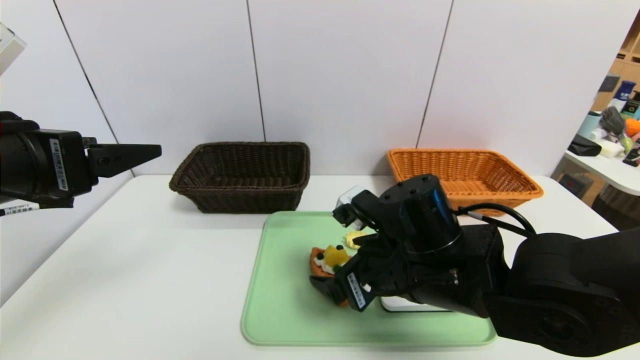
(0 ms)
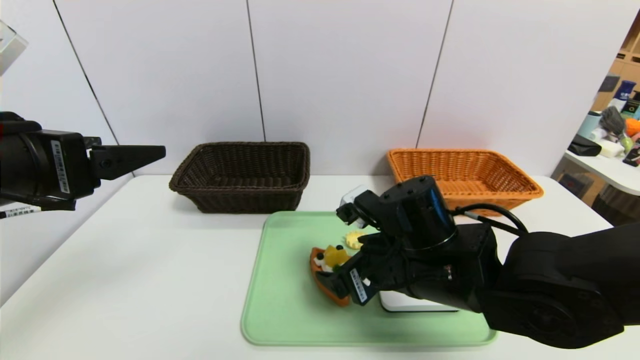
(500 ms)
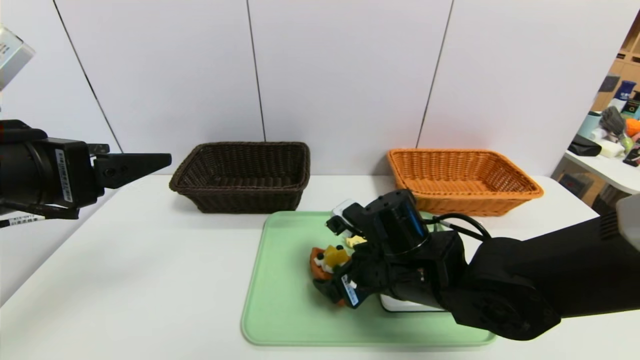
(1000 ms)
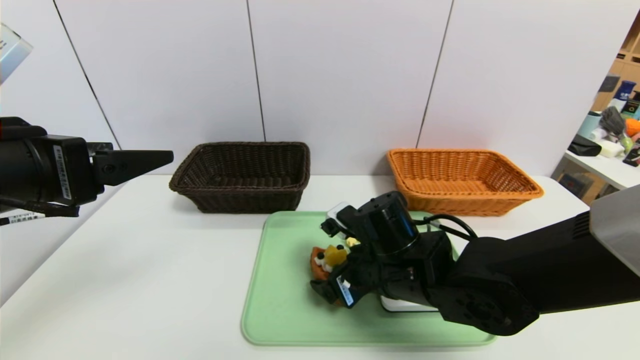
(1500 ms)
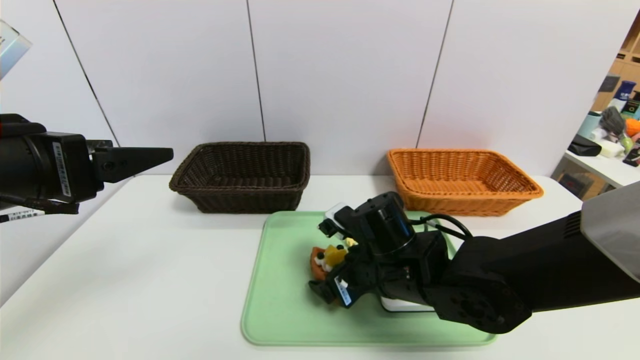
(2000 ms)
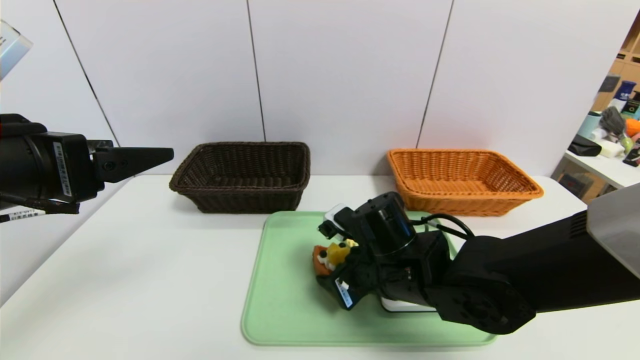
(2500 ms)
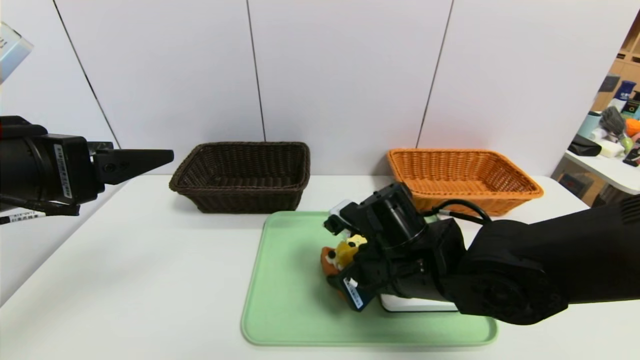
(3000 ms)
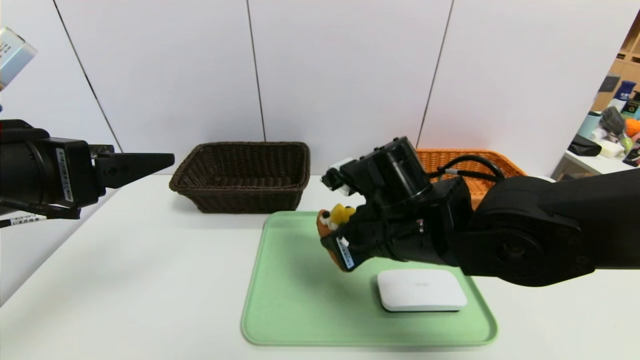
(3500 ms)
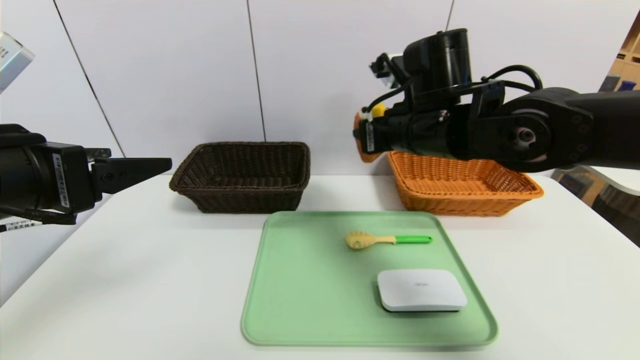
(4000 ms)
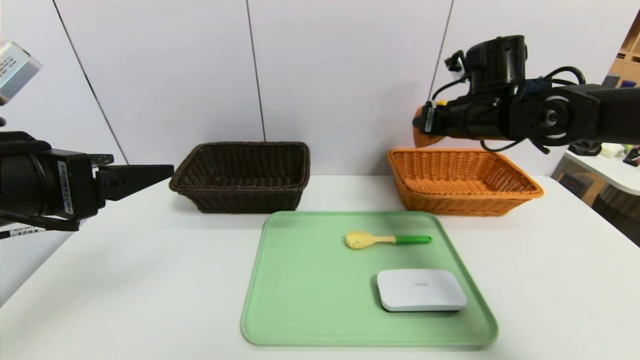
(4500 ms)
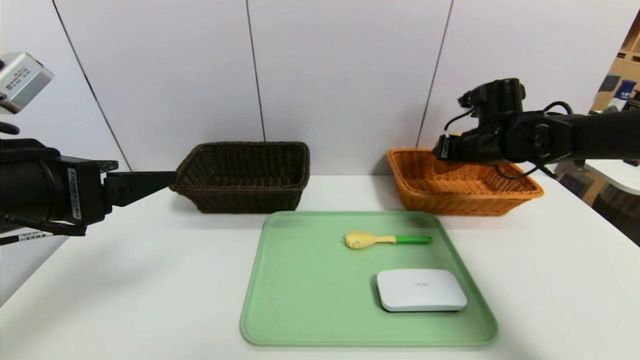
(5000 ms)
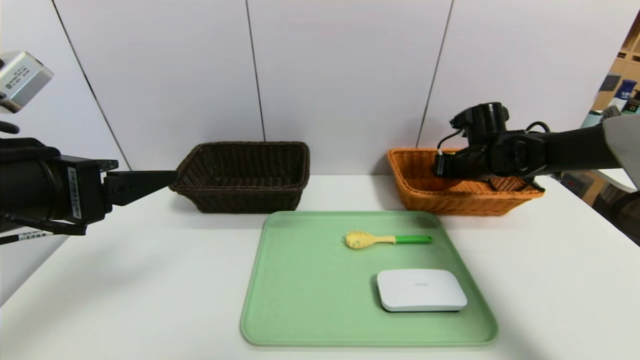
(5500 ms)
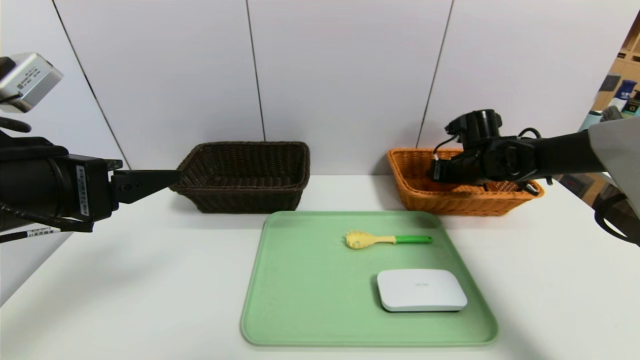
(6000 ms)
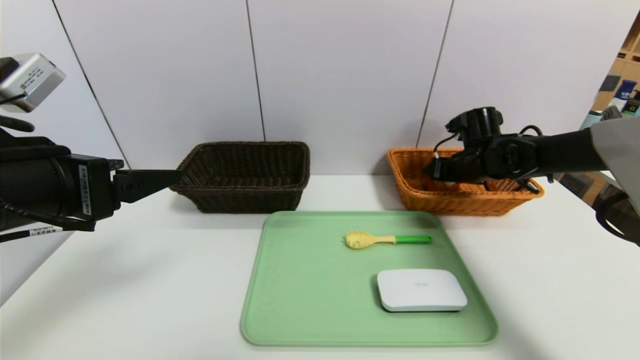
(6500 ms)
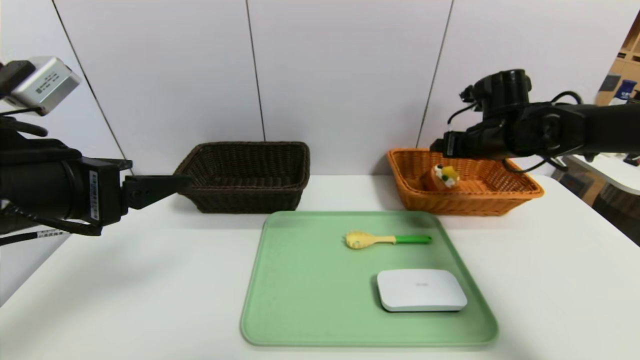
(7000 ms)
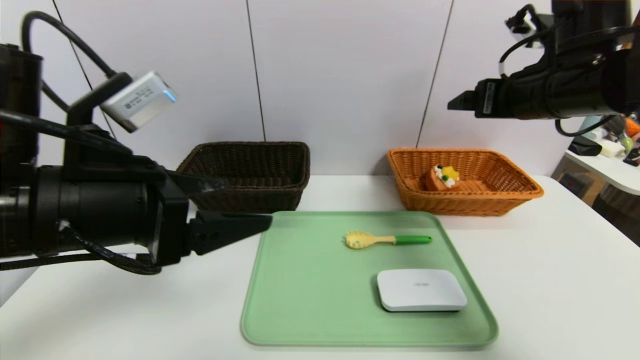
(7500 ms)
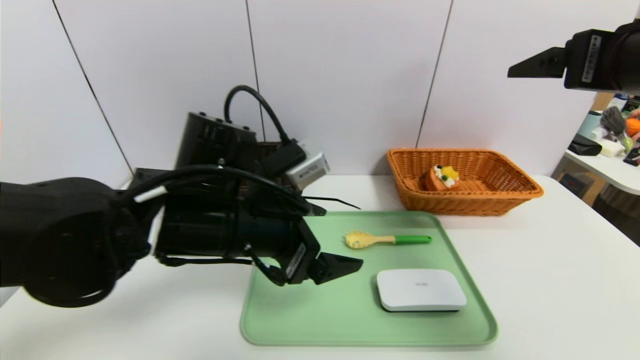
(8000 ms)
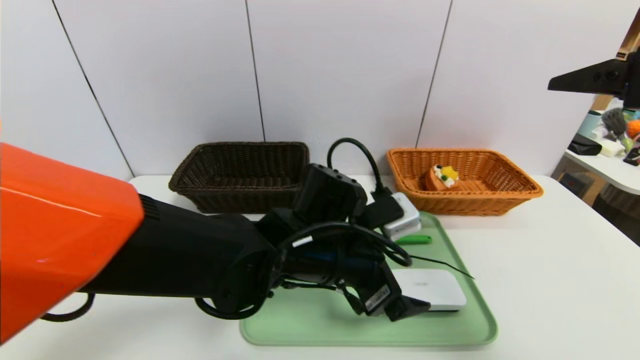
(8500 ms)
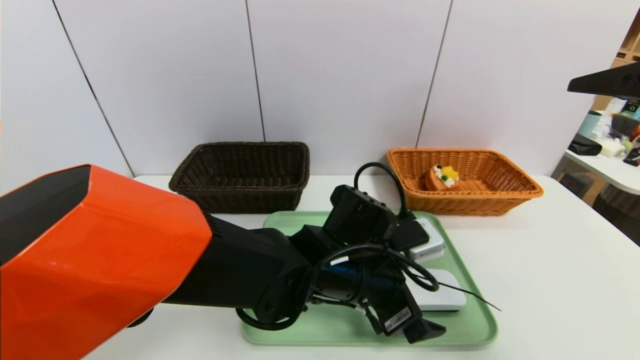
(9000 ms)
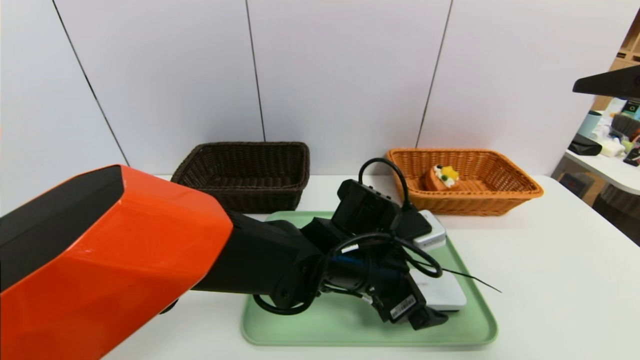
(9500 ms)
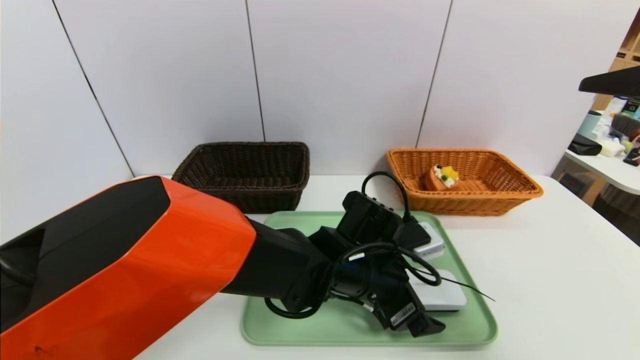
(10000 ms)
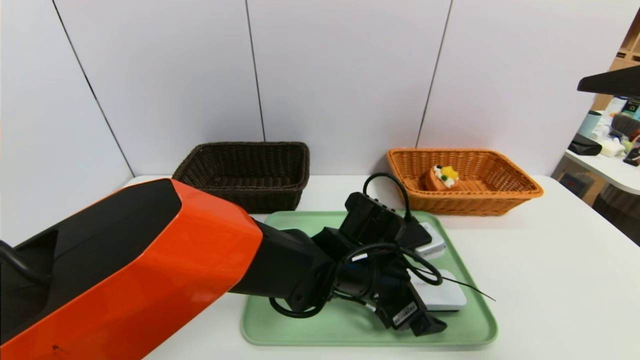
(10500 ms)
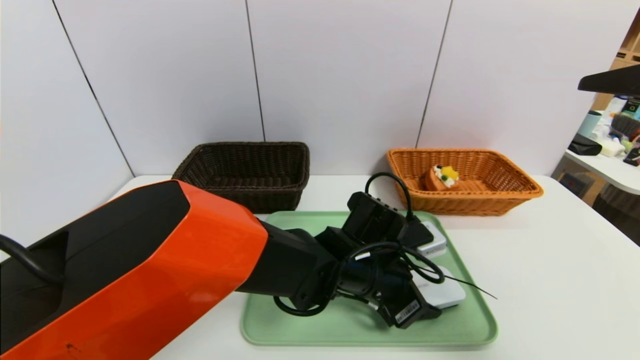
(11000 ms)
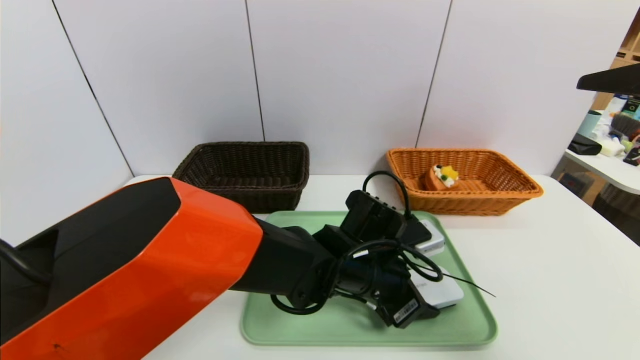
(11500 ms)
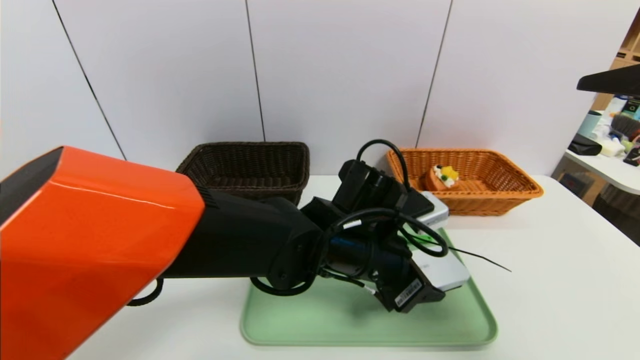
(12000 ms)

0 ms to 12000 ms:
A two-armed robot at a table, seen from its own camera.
Task of the whole recording: place the food in the right basket with the right gripper, and place the non food items in the left basket with the left gripper.
Step, 0 ms to 6500 ms: Grasp the triangle cake and put it in the right basket.
0 ms to 2000 ms: The right gripper moves some 5 cm.
2000 ms to 4000 ms: The right gripper goes roughly 20 cm upward and forward, and closes its fingers.
4000 ms to 6000 ms: The right gripper moves to the right, downward and forward, about 25 cm.
6000 ms to 8000 ms: The left gripper goes approximately 20 cm to the right, downward and forward, while the right gripper heads backward and upward, covering roughly 30 cm, and opens.
8000 ms to 10000 ms: The right gripper travels backward by some 10 cm. Meanwhile the left gripper heads to the right and downward, covering approximately 15 cm.
10000 ms to 12000 ms: The left gripper heads upward, covering approximately 5 cm, and closes up.

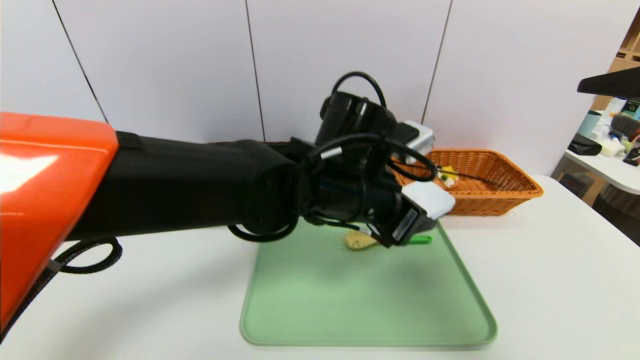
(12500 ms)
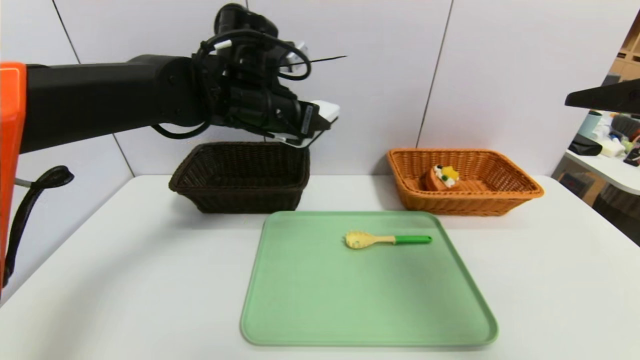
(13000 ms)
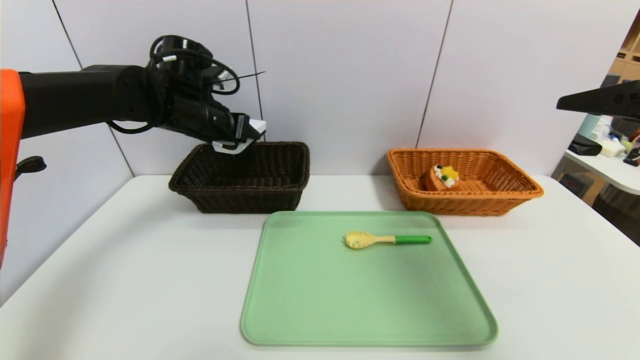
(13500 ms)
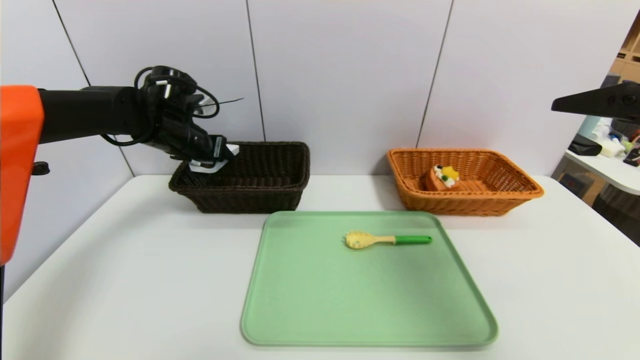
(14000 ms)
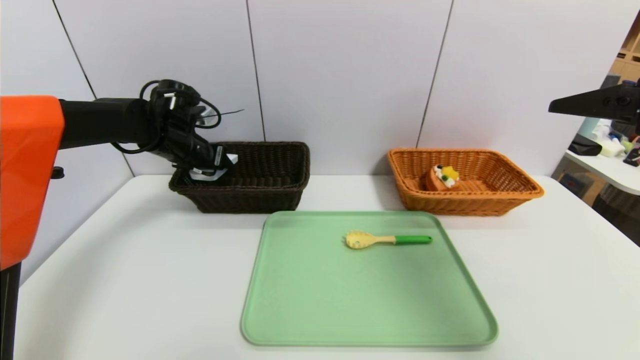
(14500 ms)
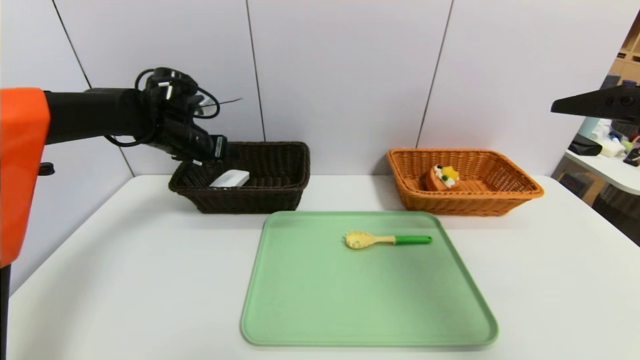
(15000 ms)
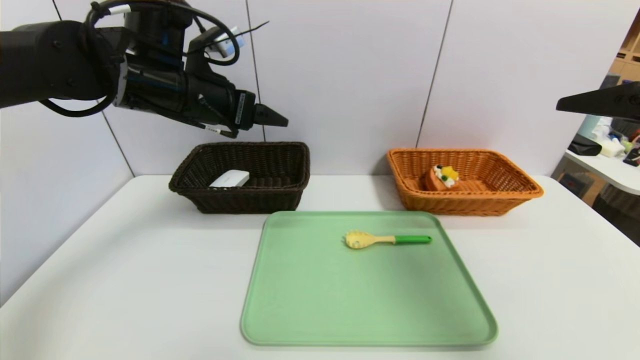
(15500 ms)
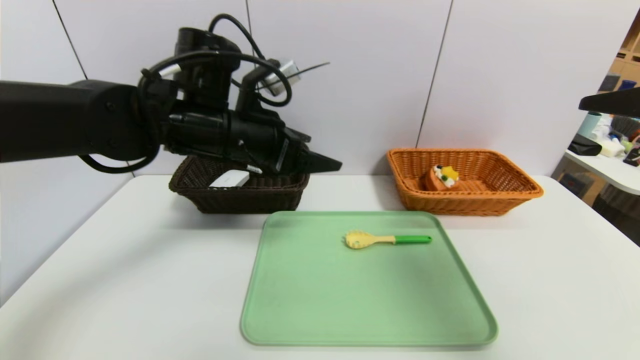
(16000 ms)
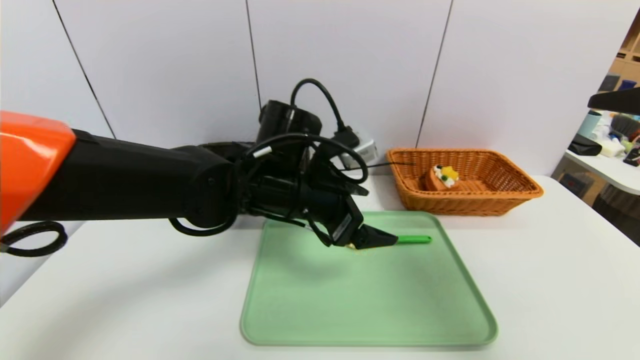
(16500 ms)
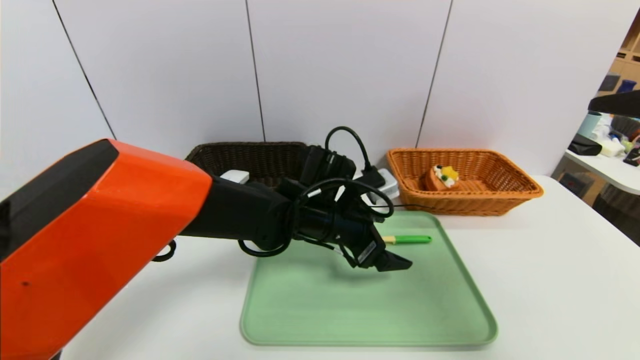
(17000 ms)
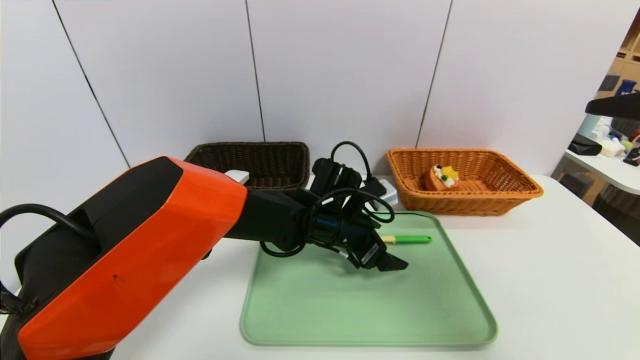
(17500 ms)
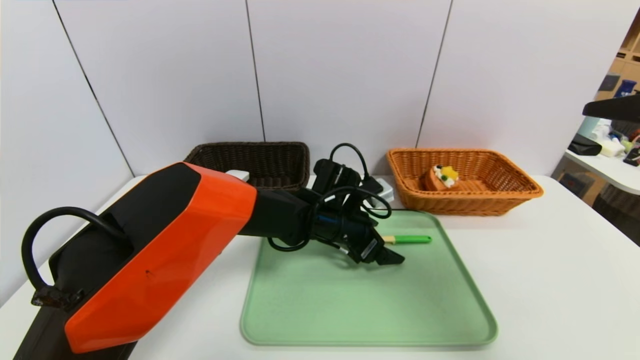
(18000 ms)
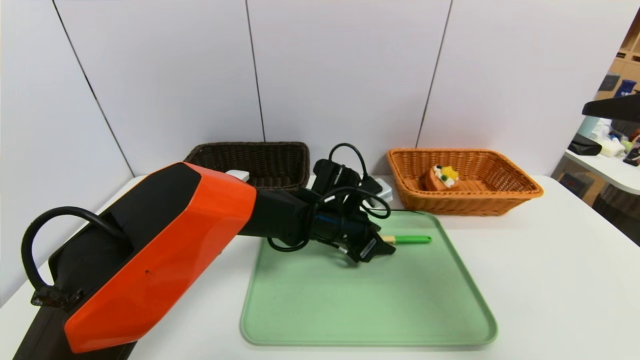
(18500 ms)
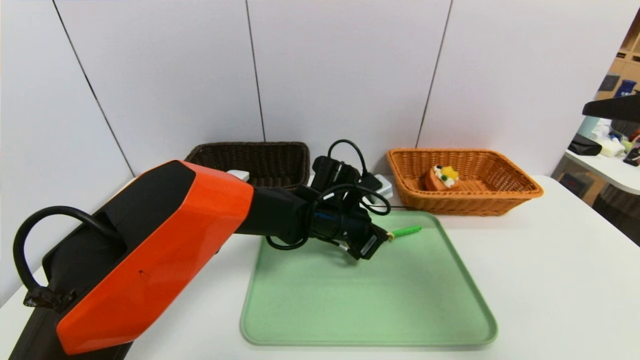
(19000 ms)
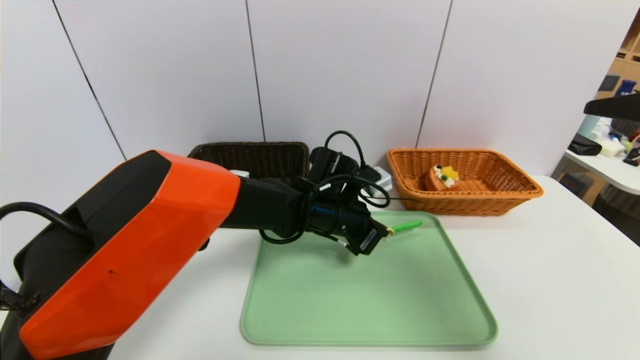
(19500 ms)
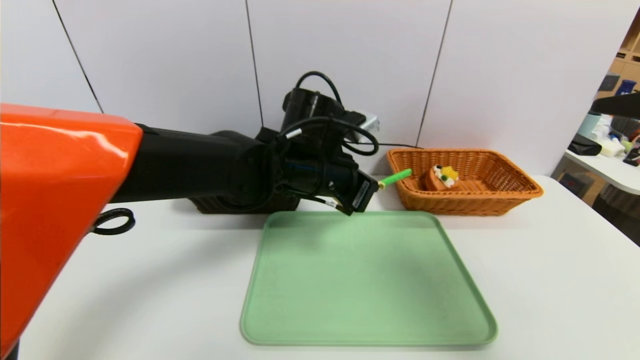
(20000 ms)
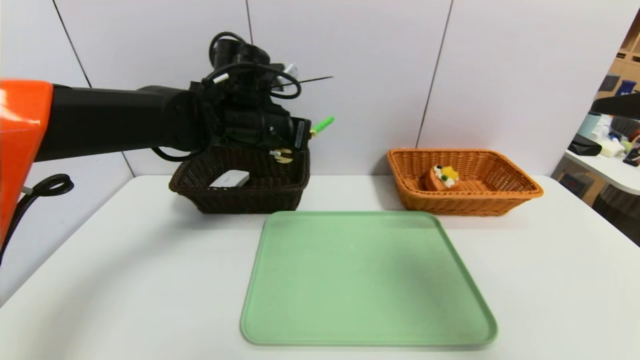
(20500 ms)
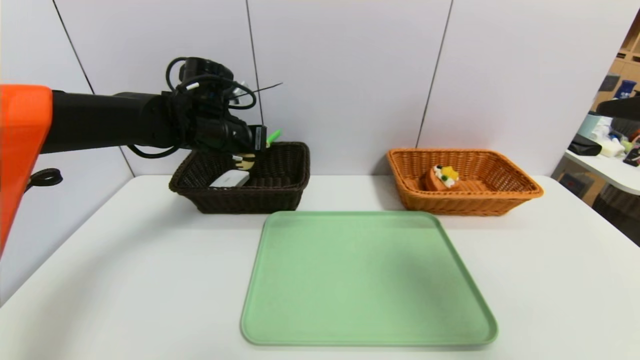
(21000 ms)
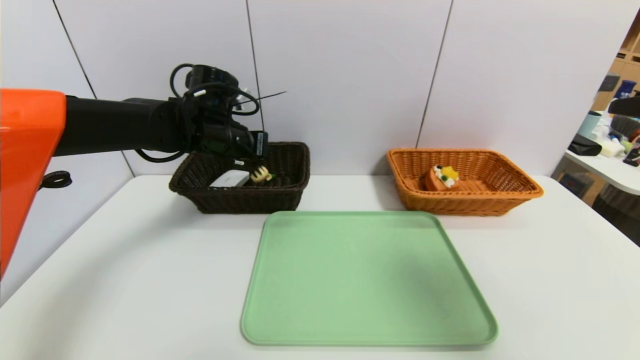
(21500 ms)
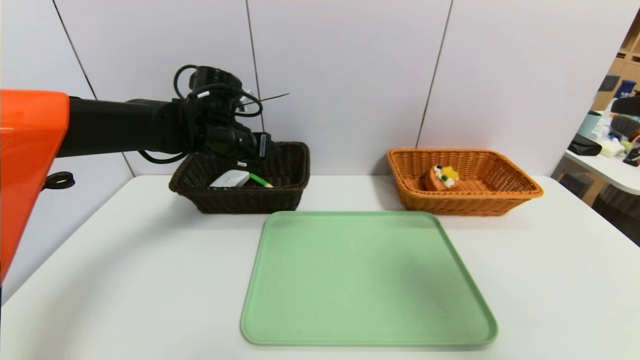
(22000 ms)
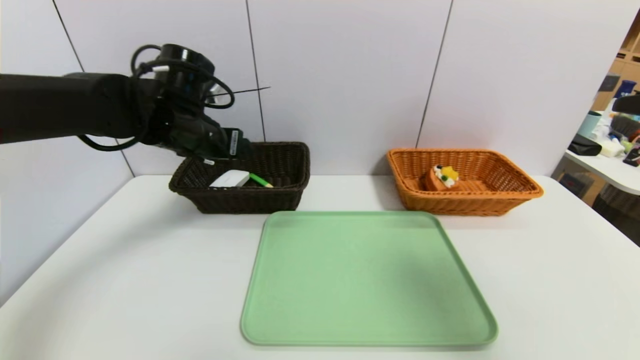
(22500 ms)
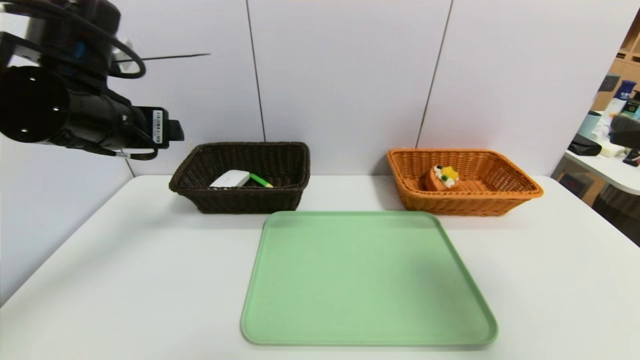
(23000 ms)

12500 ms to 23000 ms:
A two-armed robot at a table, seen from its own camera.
Task of the whole recording: place the food in the right basket with the right gripper, and place the non food items in the left basket with the left gripper.
Step, 12500 ms to 15000 ms: Grasp the white eraser and put it in the left basket.
Step, 15500 ms to 21500 ms: Grasp the back scratcher and put it in the left basket.
12500 ms to 14500 ms: The left gripper shifts about 30 cm to the left and forward.
14500 ms to 16500 ms: The left gripper is displaced to the right and backward by about 25 cm, and opens its fingers.
16500 ms to 19000 ms: The left gripper moves downward, forward and to the right, about 15 cm, and closes up.
19000 ms to 21000 ms: The left gripper travels to the left and upward by roughly 25 cm.
21000 ms to 23000 ms: The left gripper is displaced backward, upward and to the left by approximately 20 cm, and opens up.
